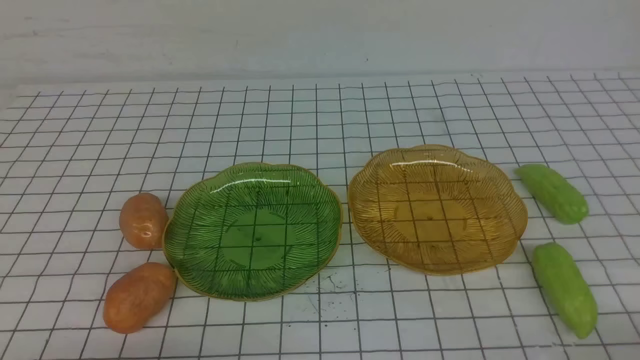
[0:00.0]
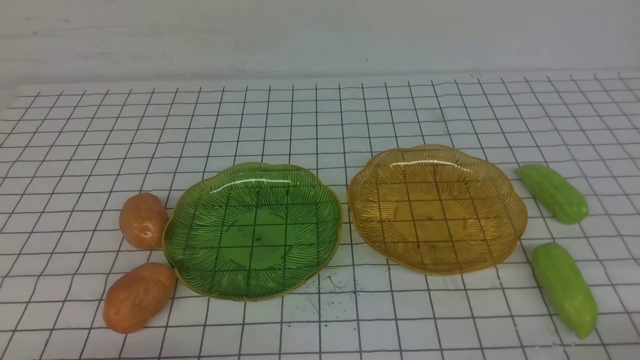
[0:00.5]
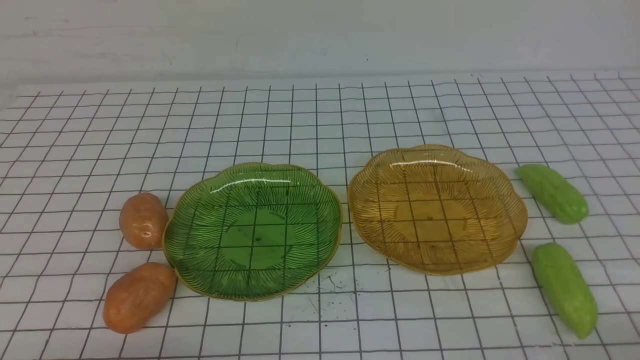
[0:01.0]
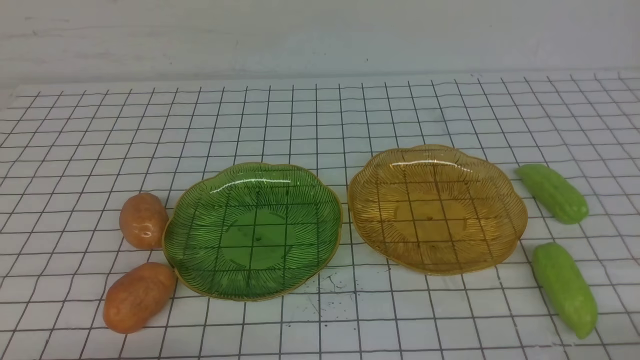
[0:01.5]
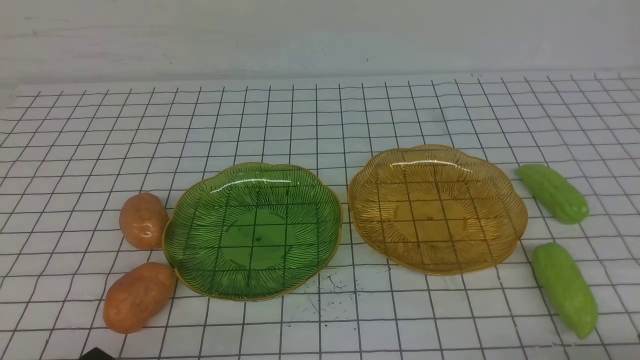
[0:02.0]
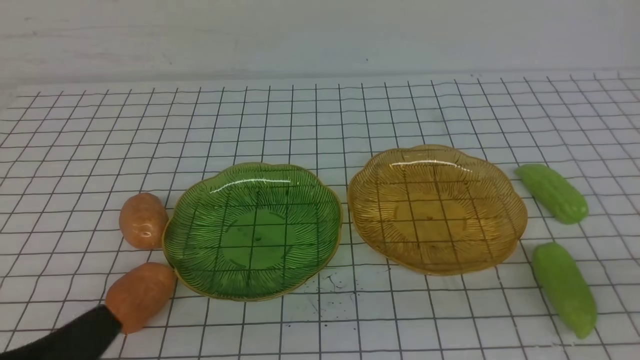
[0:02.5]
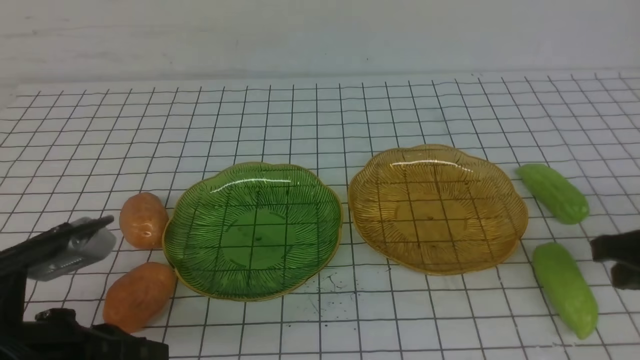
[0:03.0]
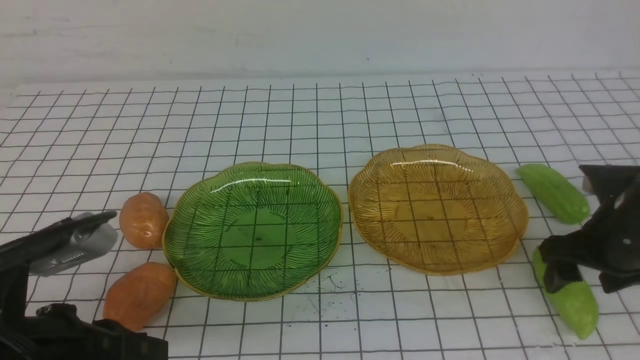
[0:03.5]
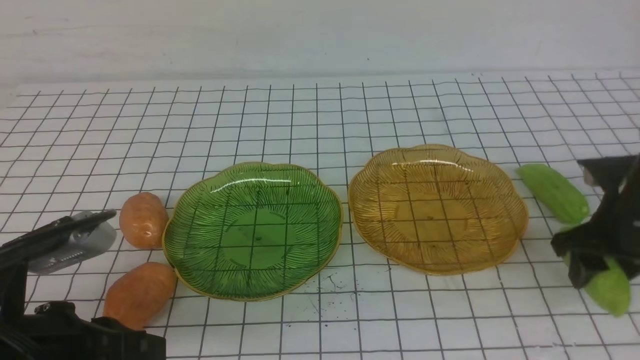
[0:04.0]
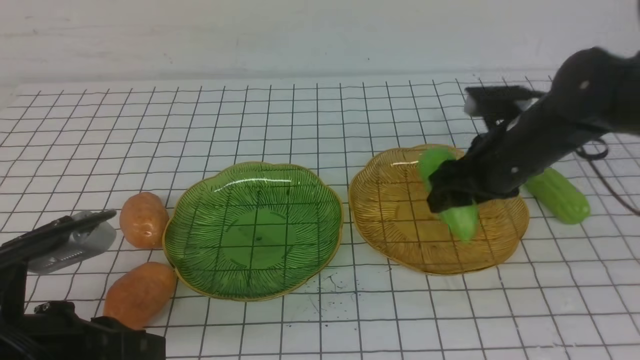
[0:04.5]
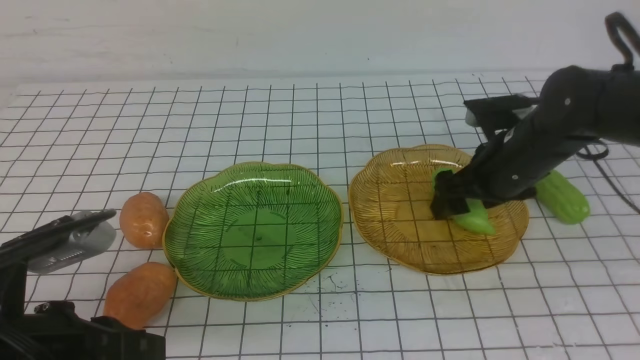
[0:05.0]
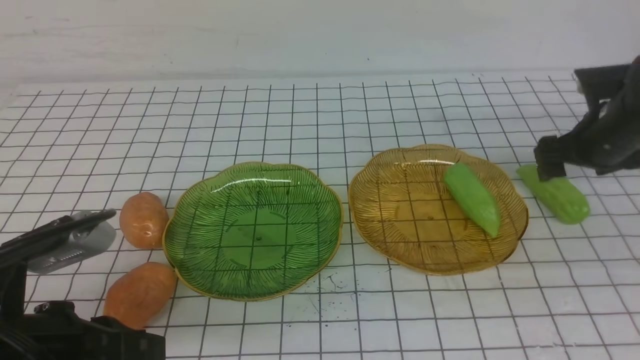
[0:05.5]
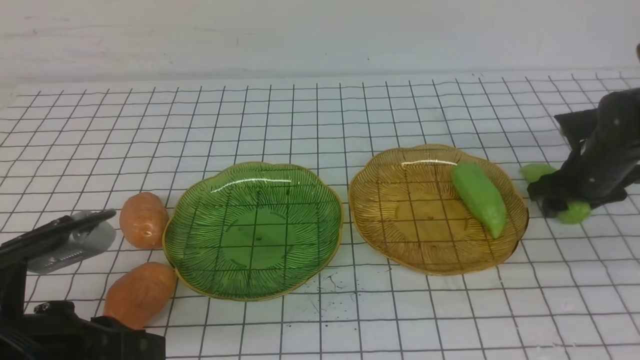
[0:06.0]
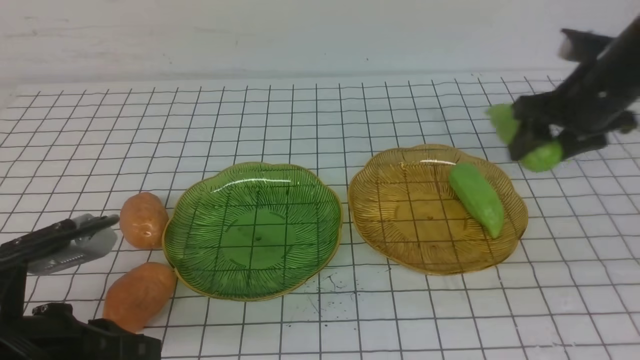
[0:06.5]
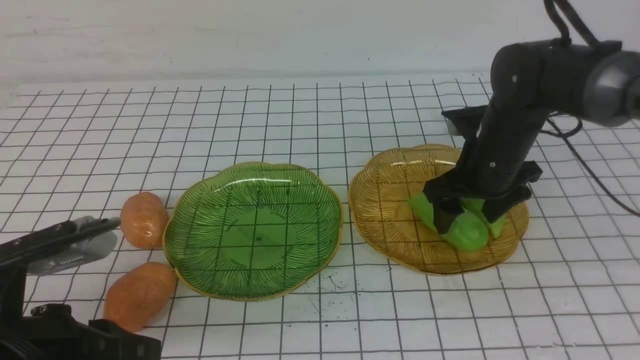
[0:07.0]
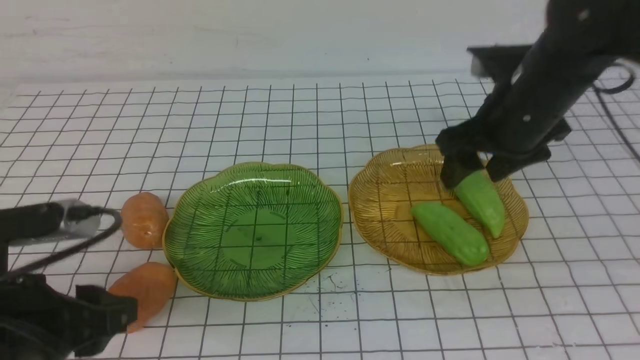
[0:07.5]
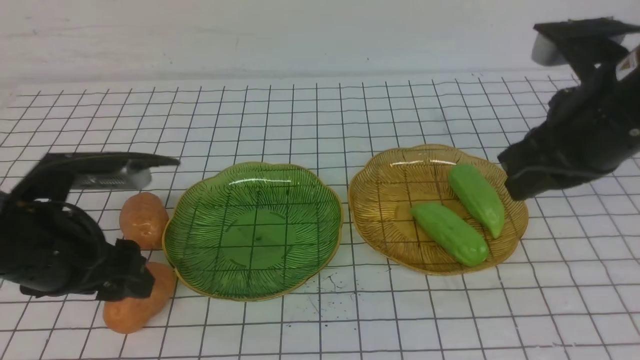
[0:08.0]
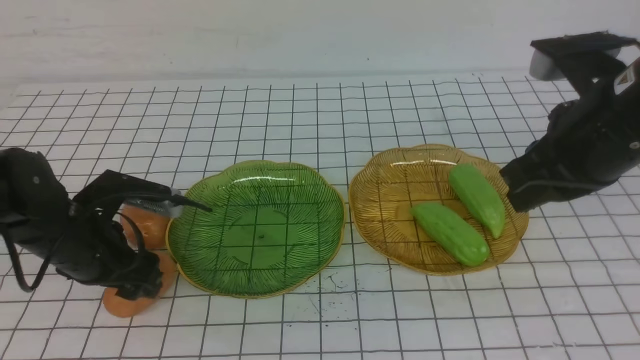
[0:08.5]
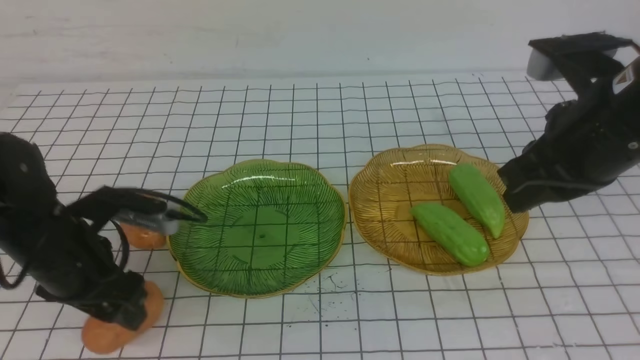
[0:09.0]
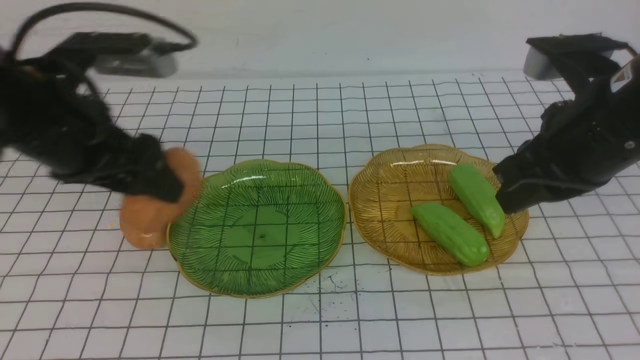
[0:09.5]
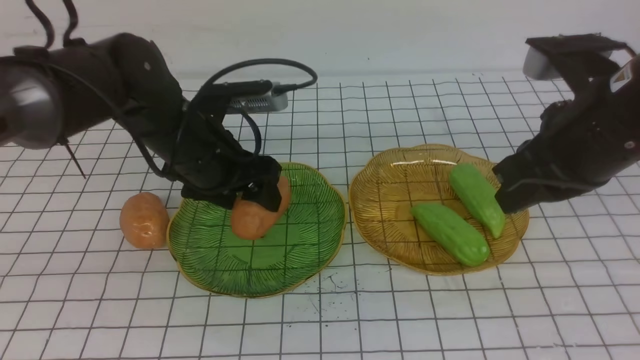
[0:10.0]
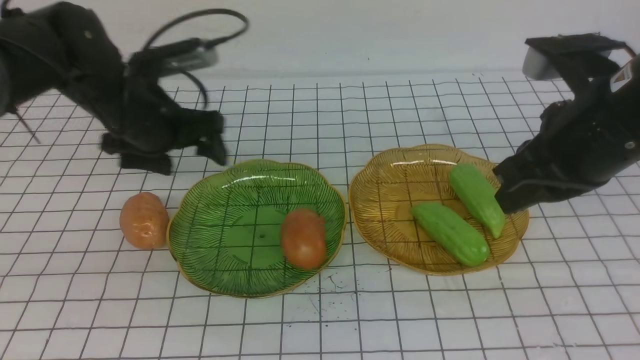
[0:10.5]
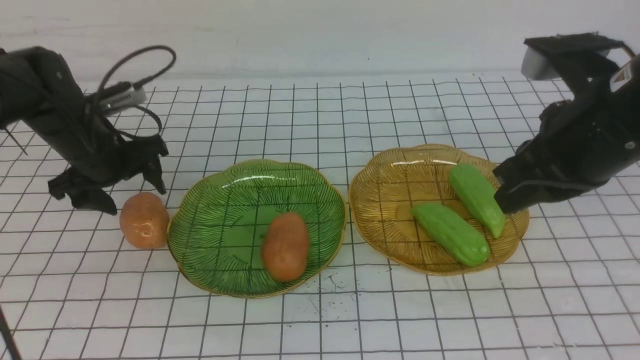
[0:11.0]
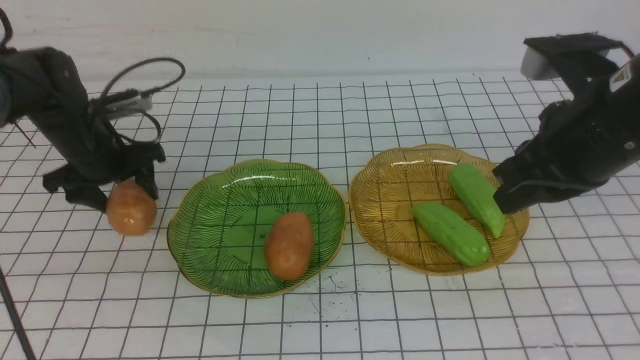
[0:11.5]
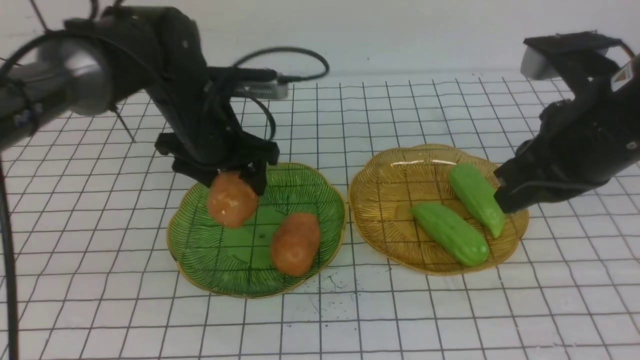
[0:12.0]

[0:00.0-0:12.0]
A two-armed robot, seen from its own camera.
Step, 0:00.0 to 0:05.0: use the left arm to grab a chayote and put it into the left plate.
Step, 0:07.5 to 0:10.0: Grab a potato with your left arm and put it on the left plate.
0:02.0 to 0:04.0: The right gripper shifts roughly 25 cm forward, and opens. The left gripper travels forward and upward by some 10 cm.
0:04.0 to 0:06.0: The right gripper moves forward, roughly 10 cm, and moves some 10 cm to the left and comes back.
0:06.0 to 0:08.0: The left gripper goes roughly 10 cm forward, and opens up, while the right gripper swings up and down, about 15 cm each way, with 2 reversals, and closes.
0:08.0 to 0:10.0: The left gripper swings up and down, some 15 cm each way, with 2 reversals.
0:10.0 to 0:12.0: The left gripper reaches approximately 15 cm to the left, then returns.

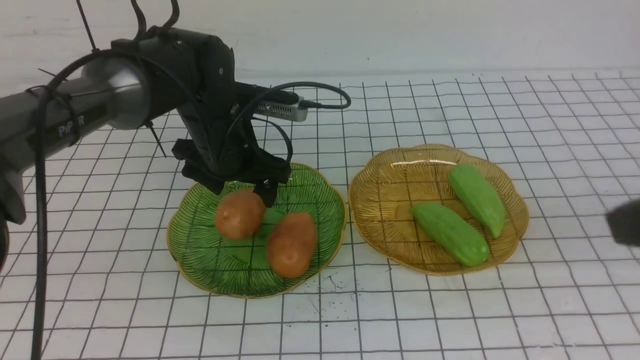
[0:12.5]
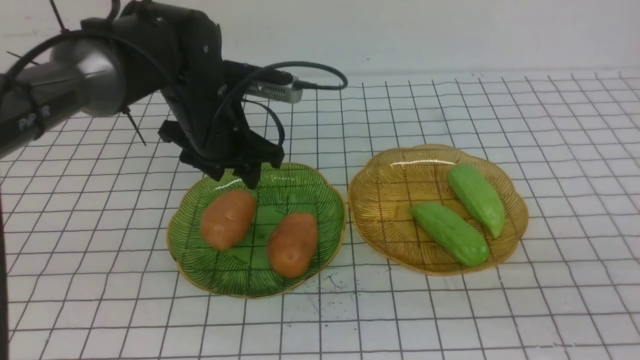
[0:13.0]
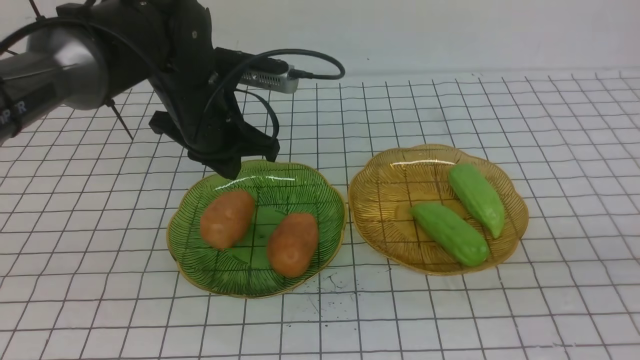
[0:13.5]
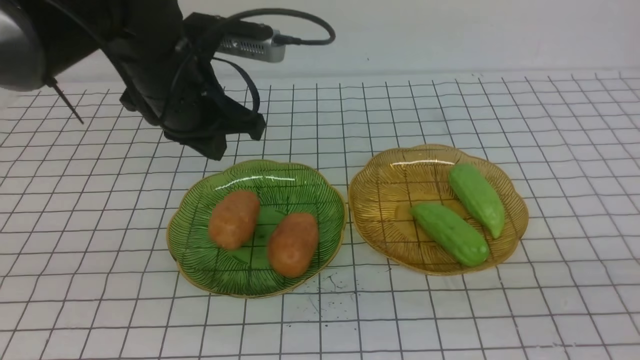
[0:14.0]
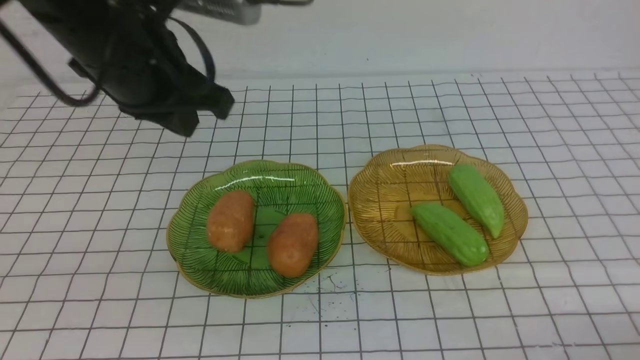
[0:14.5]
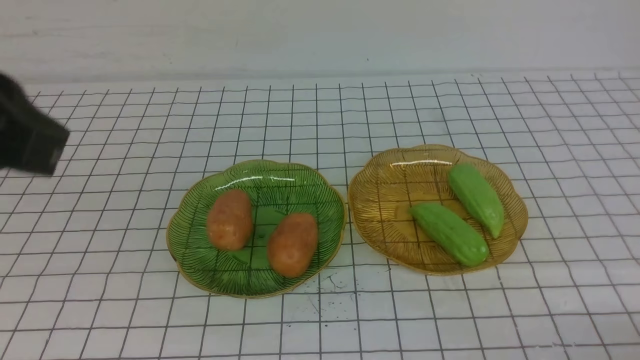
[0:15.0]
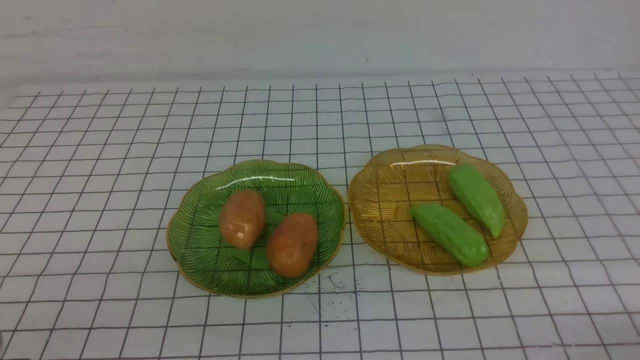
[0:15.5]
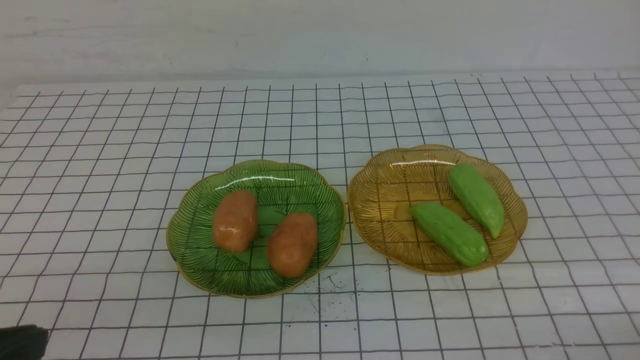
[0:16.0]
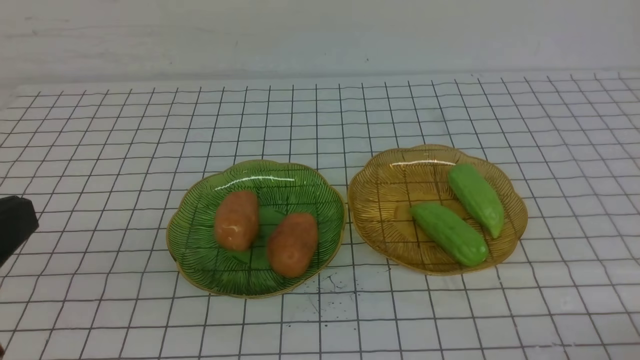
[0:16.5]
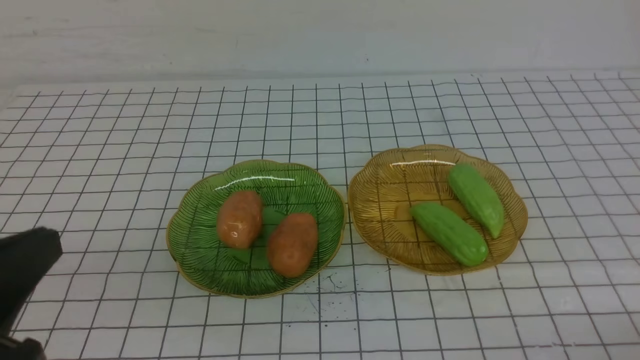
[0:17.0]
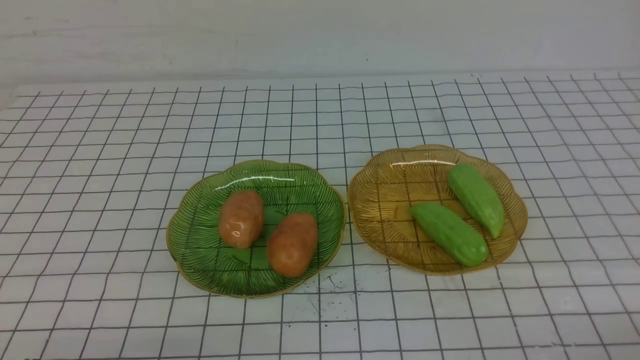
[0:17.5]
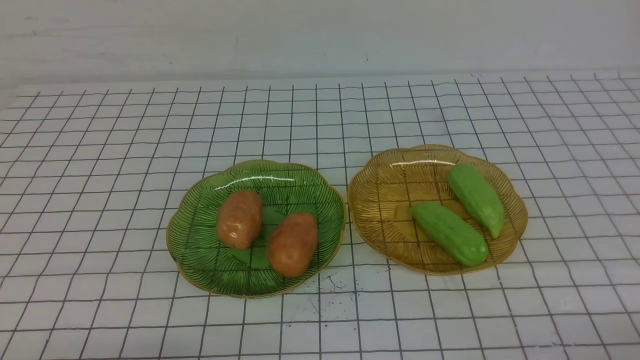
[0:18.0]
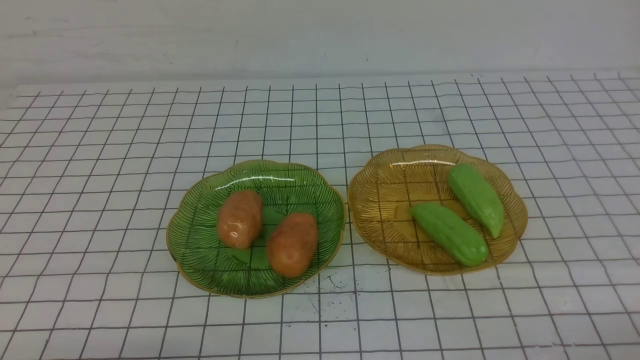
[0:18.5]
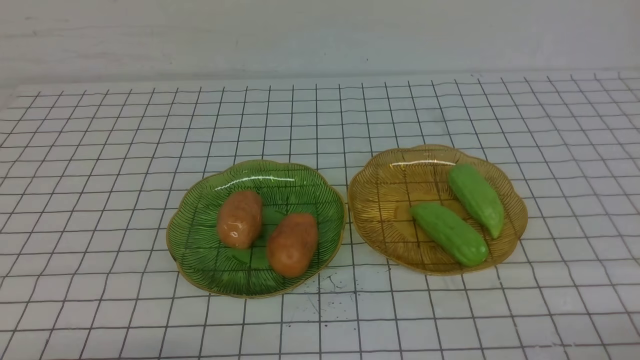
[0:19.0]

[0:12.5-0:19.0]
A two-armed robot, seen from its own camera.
0:12.5 to 0:14.5: The left gripper goes about 20 cm upward and backward, and closes its fingers. Meanwhile the right gripper goes about 20 cm downward.
0:14.5 to 0:17.0: The left gripper travels backward and downward by about 25 cm.
0:17.0 to 0:19.0: The left gripper is displaced downward by some 15 cm.
